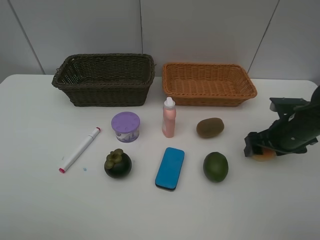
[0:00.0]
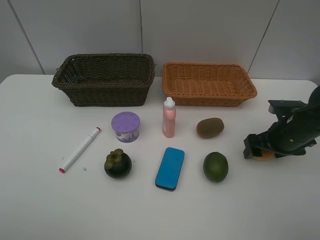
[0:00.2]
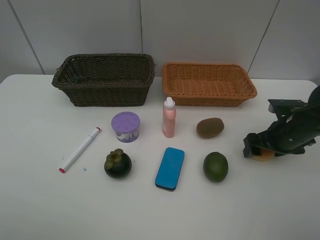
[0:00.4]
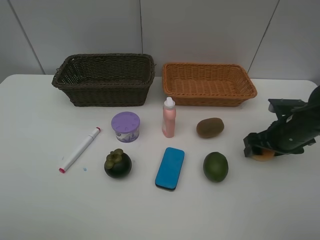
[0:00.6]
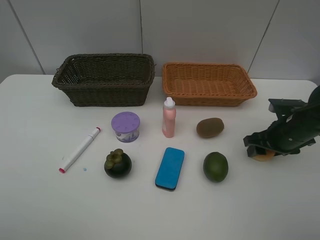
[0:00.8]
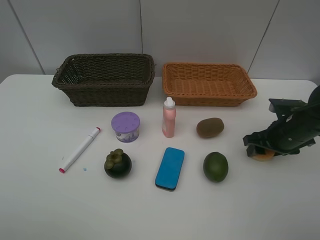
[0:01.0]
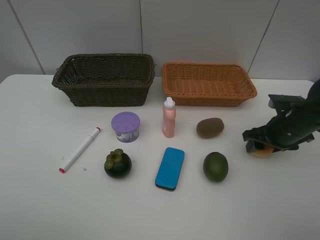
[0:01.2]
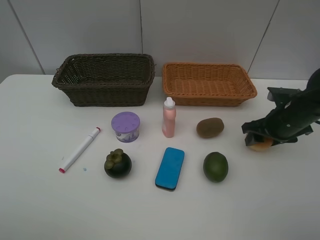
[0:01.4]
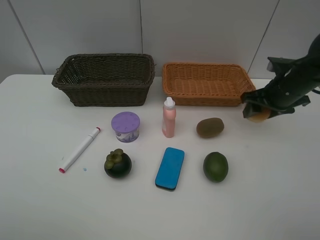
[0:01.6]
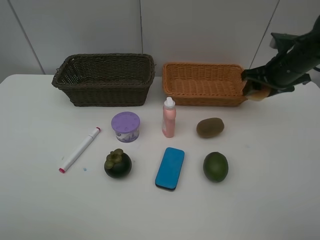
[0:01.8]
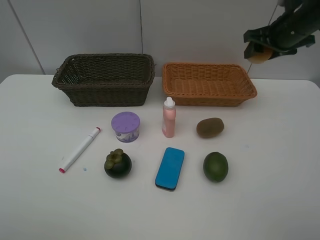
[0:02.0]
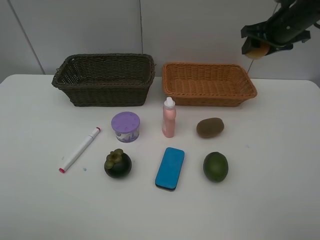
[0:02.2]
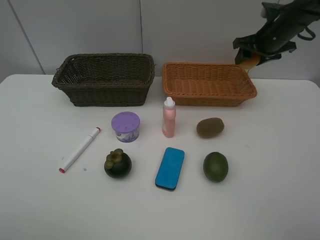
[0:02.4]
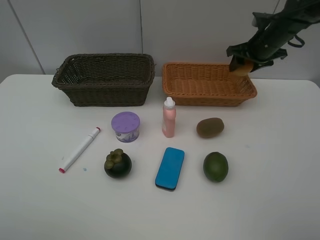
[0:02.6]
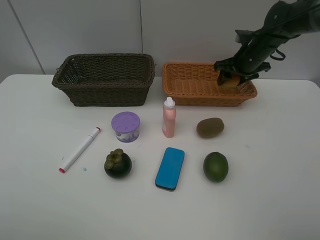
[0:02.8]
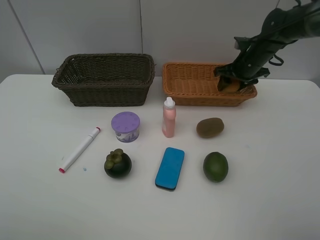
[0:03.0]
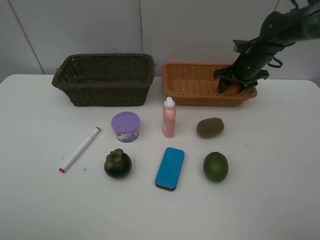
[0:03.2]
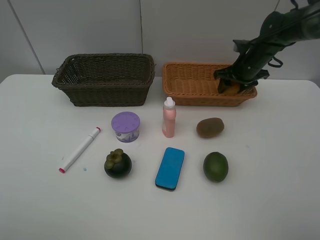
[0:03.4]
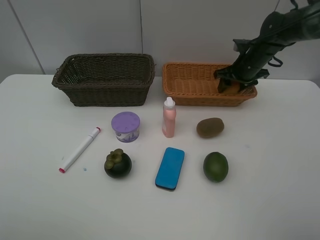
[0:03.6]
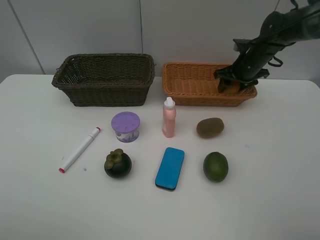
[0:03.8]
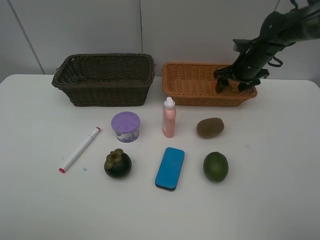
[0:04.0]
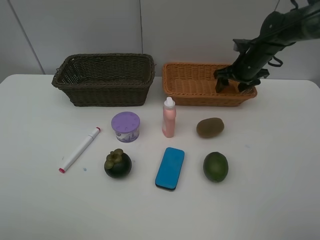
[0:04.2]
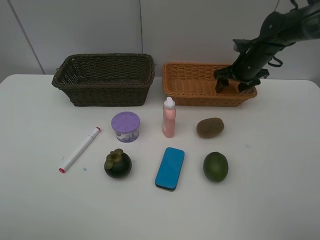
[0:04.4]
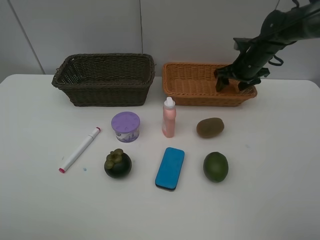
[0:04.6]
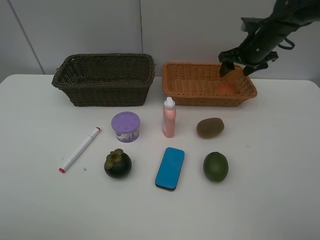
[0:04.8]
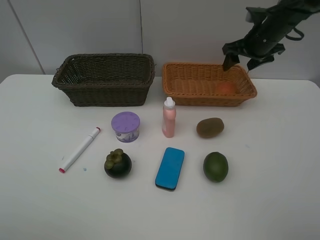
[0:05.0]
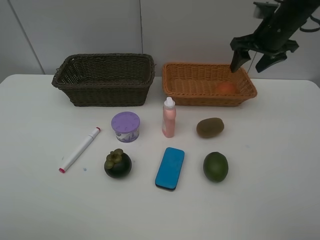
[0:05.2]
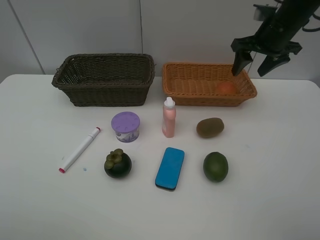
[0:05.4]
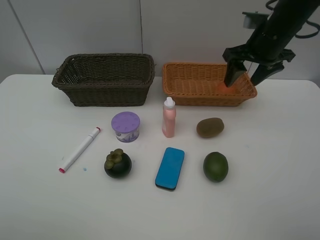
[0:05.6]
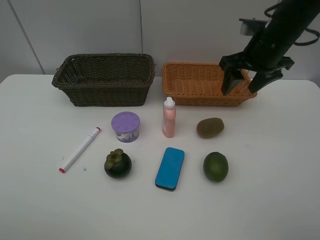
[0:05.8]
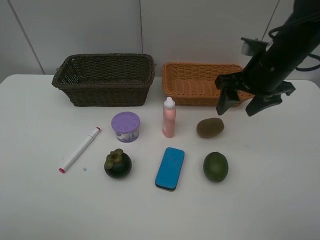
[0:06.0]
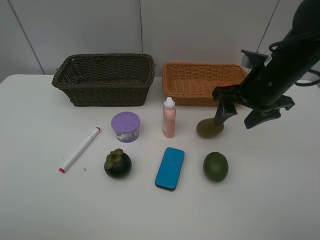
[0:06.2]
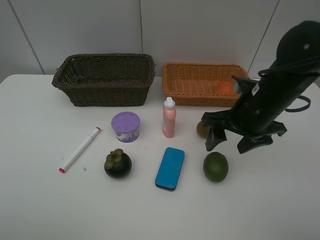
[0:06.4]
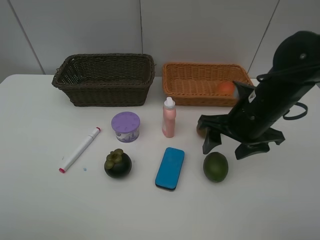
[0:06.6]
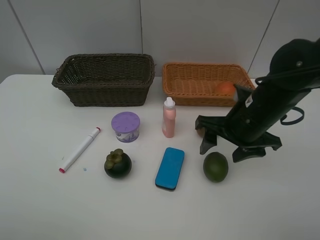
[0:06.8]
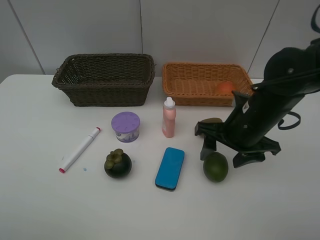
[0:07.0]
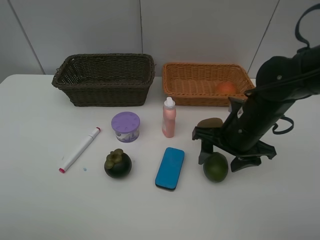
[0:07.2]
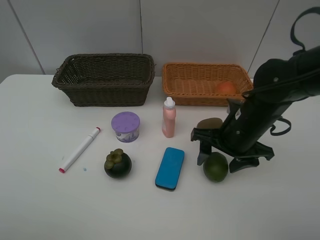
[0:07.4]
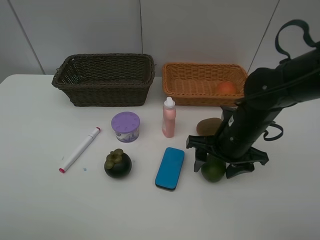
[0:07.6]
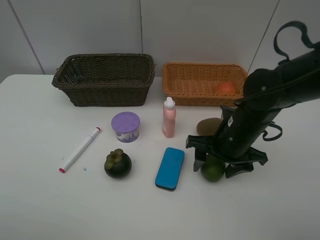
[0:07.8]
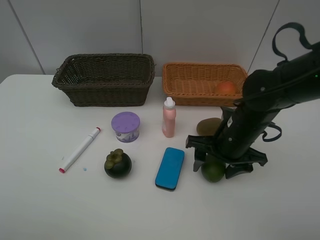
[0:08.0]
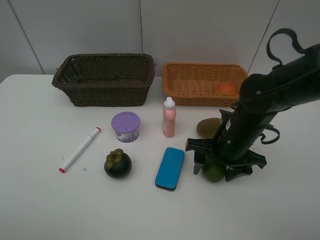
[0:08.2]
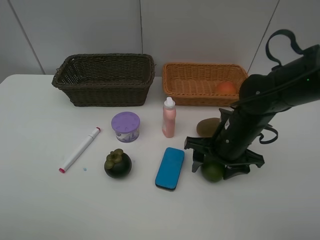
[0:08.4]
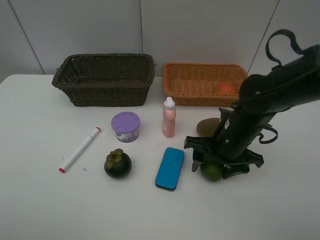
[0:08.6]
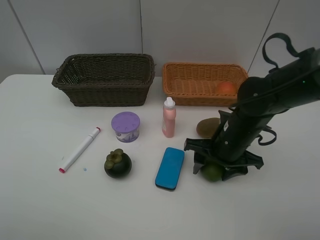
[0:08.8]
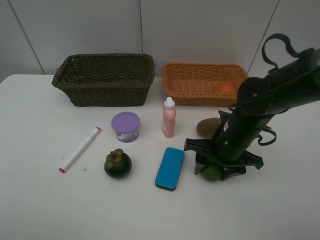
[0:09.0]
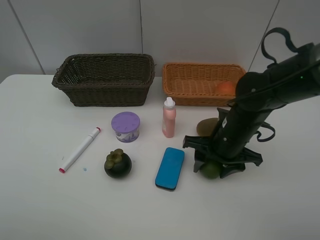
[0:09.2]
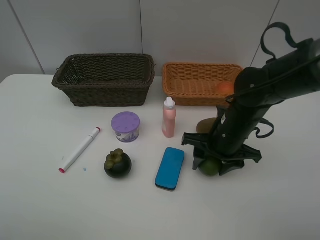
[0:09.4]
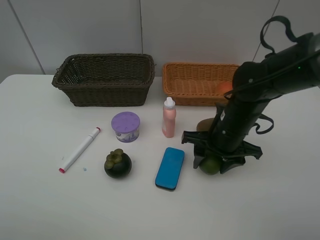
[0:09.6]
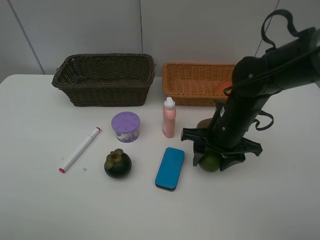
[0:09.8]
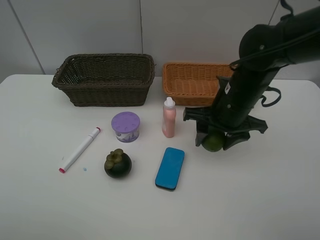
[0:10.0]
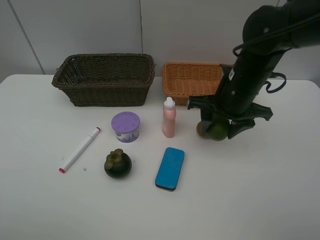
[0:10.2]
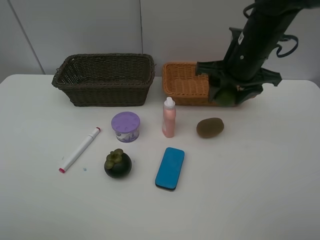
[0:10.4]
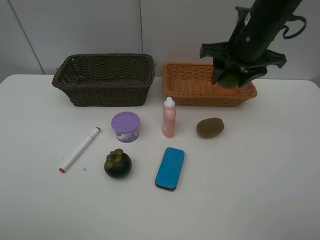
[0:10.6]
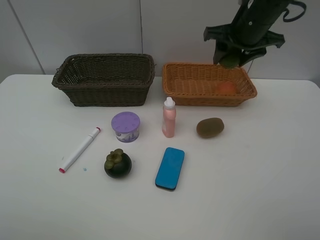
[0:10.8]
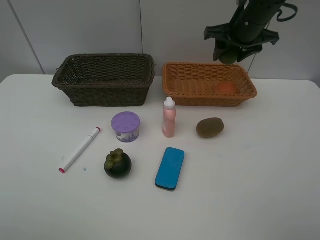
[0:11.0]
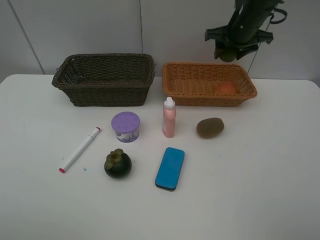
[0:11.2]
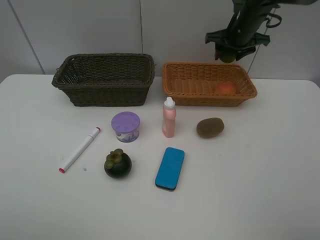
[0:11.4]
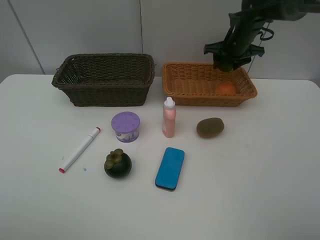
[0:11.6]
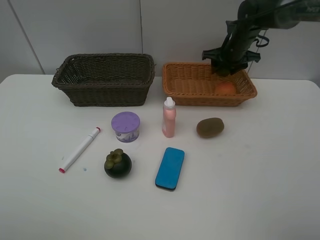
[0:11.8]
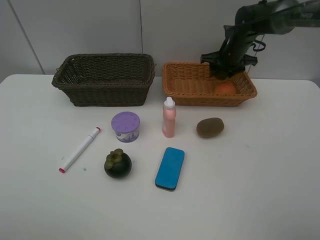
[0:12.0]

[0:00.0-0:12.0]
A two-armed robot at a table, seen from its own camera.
Task of the whole recording: Place multiple objects separately in different baskets.
Step, 0:01.6 to 0:04.8: Place the egg yolk pastry in the light basket with right gripper.
Step, 0:05.0 to 0:09.8: Pick up the lime with right gripper.
0:00.0 to 0:01.6: The right gripper goes some 10 cm forward and upward, and closes its fingers.
0:01.6 to 0:03.0: The right gripper heads forward, covering approximately 10 cm.
0:03.0 to 0:04.4: Neither gripper changes place.
0:04.4 to 0:06.0: The right gripper shifts roughly 20 cm backward and upward.
0:06.0 to 0:07.6: The right gripper shifts approximately 10 cm downward and backward.
0:07.6 to 0:09.0: The grippers move only a little.
0:09.0 to 0:10.4: The right gripper travels upward and forward by approximately 15 cm.
0:10.4 to 0:12.0: The right gripper travels forward and downward by approximately 20 cm.

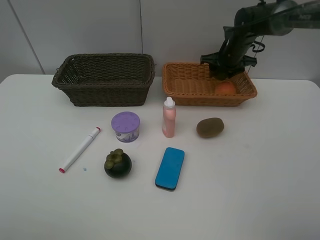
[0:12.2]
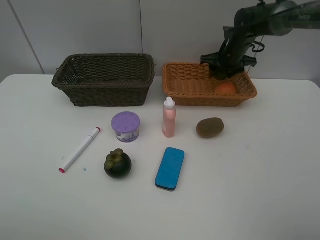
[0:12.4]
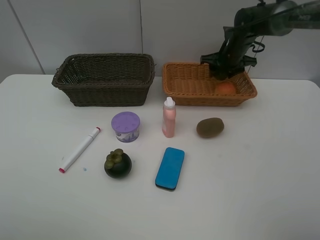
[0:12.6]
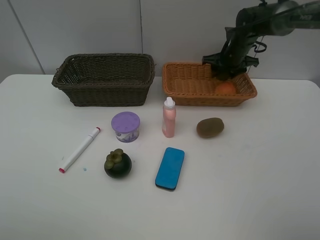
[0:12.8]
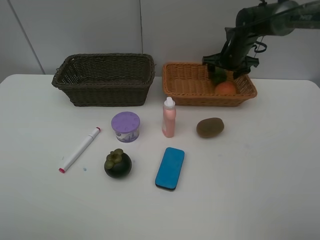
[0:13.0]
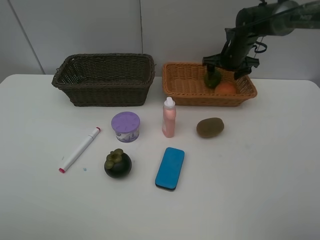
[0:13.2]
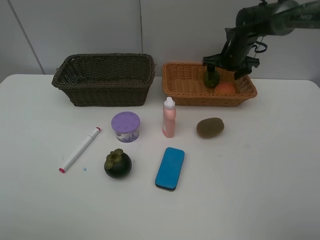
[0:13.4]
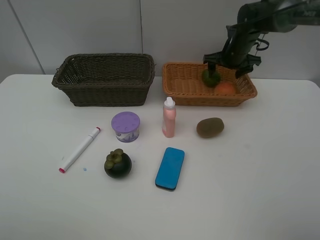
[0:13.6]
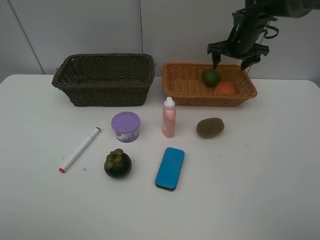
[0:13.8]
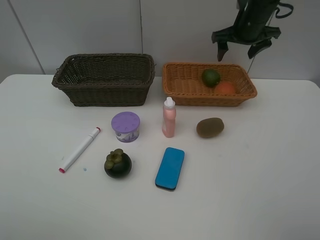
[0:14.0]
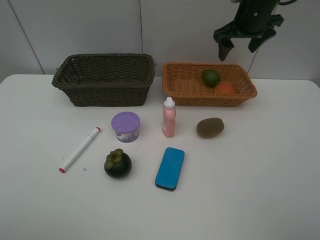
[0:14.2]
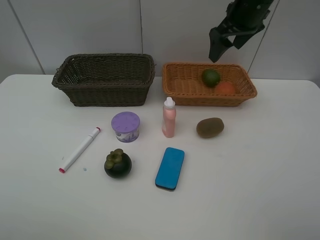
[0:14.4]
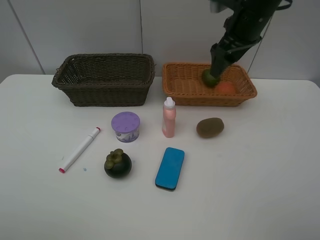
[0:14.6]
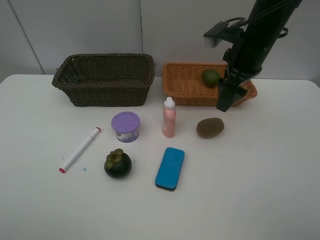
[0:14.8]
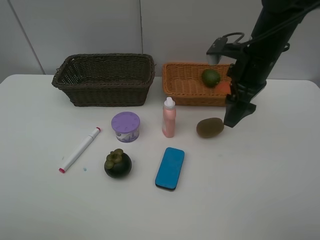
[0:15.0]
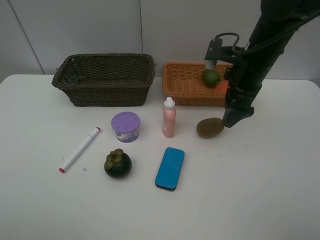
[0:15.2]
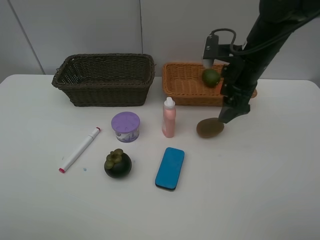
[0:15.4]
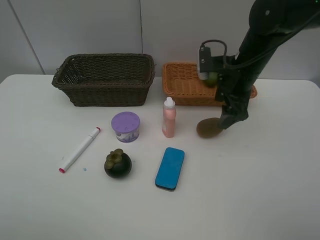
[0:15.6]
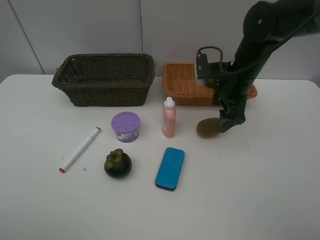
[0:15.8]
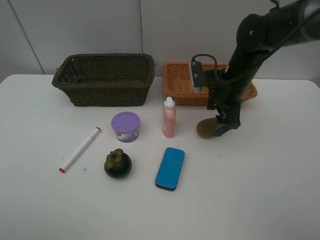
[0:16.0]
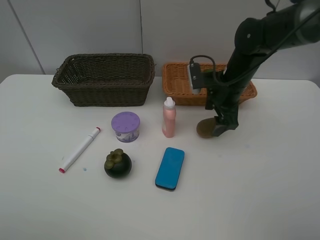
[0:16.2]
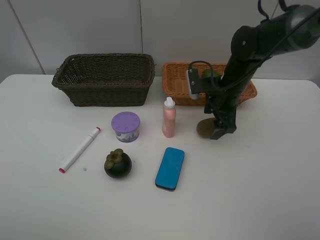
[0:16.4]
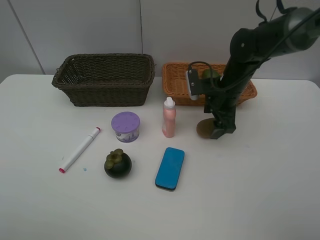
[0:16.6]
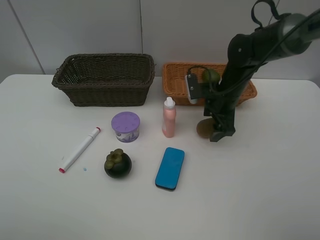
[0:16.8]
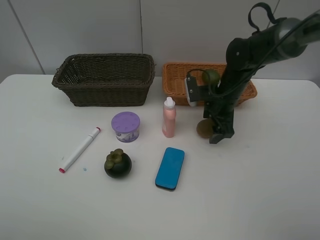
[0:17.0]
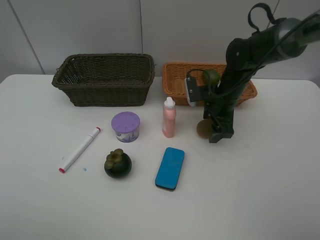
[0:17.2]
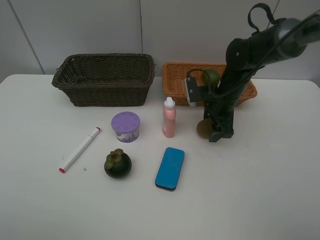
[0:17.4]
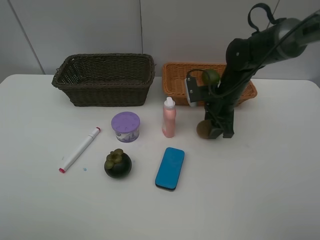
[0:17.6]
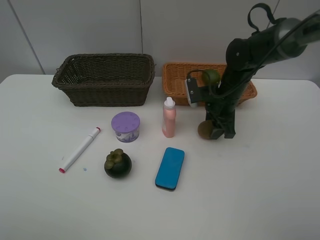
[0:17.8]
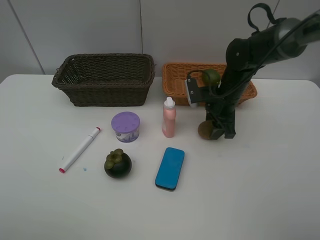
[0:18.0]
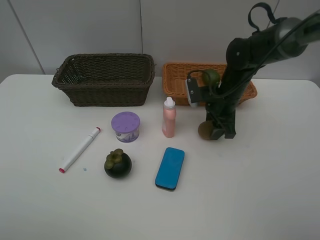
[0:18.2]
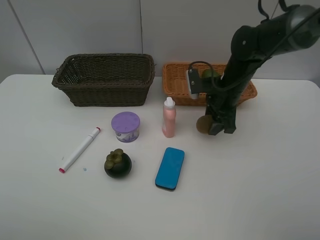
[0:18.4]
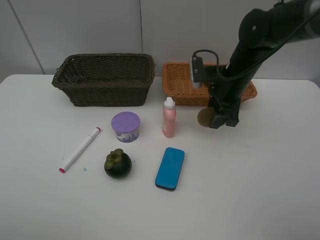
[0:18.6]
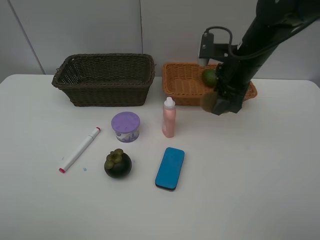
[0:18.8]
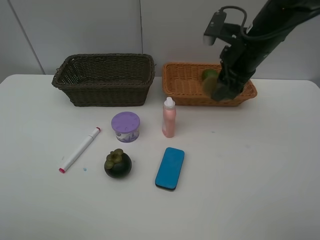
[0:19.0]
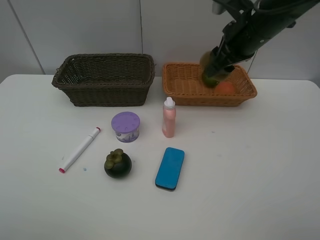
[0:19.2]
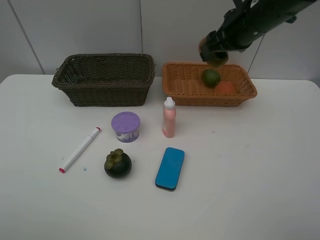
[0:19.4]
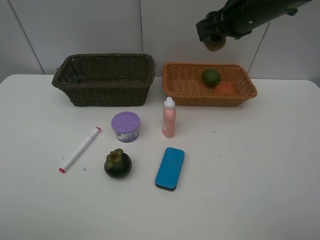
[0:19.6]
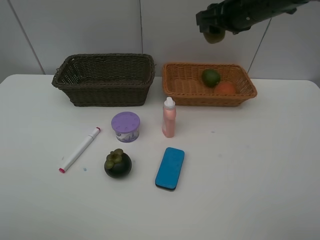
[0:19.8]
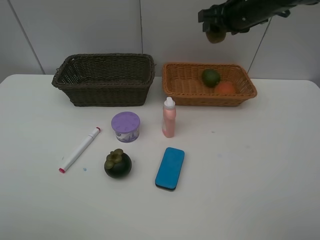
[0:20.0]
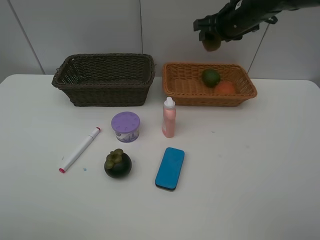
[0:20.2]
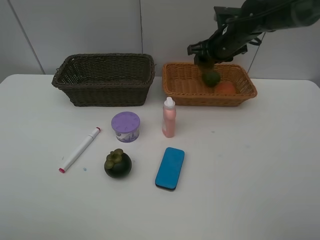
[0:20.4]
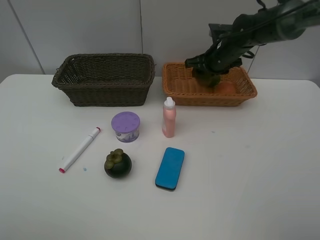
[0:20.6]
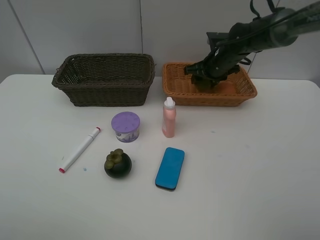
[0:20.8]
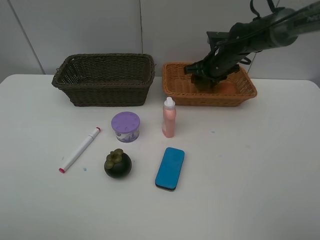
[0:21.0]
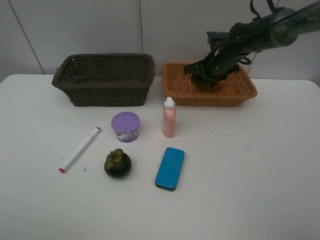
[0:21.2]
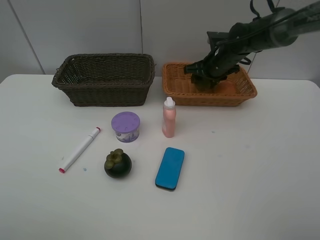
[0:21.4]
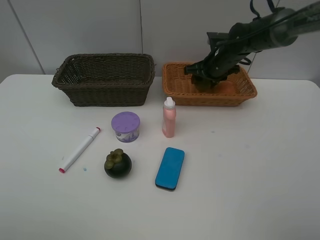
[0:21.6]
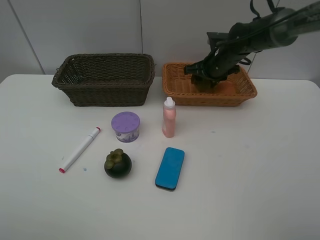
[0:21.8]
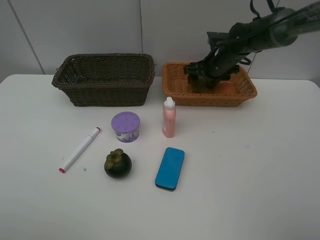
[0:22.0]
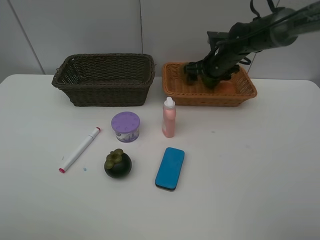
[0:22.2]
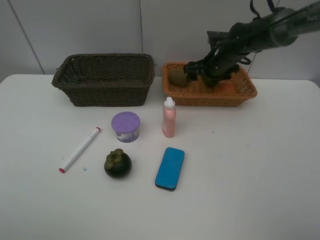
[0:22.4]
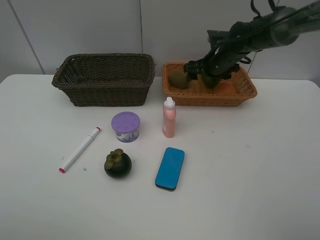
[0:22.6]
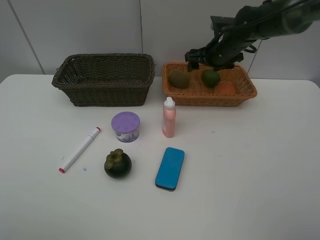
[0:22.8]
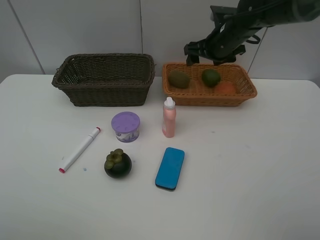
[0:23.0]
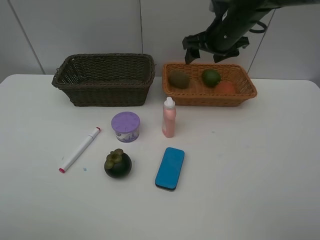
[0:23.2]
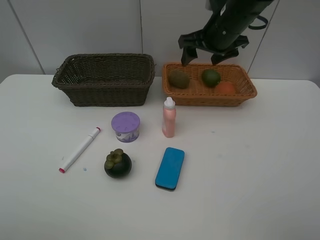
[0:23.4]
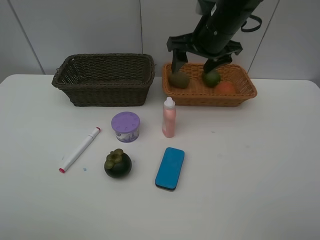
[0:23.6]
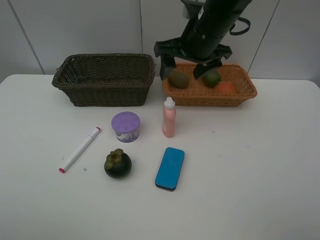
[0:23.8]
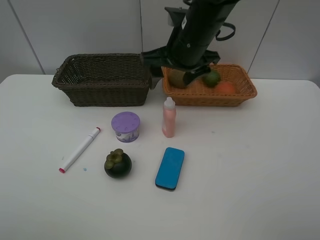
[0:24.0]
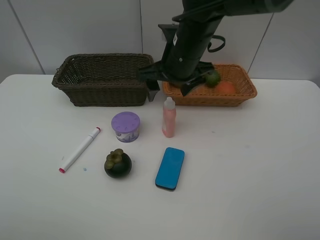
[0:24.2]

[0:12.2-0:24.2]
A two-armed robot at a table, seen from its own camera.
Task of the whole recording: Place multiple objects separately in different baskets.
Step, 0:14.0 to 0:18.4: Pick up kiwi with right gripper.
Step, 0:18.6 to 0:22.8: Place the kiwi in the light basket with right gripper.
0:12.2 to 0:13.8: The right gripper heads upward, covering roughly 5 cm, and opens.
0:13.8 to 0:15.2: The right gripper is displaced backward by approximately 15 cm.
0:15.2 to 0:16.6: The right gripper goes some 10 cm downward.
0:16.6 to 0:18.2: The right gripper closes up.
0:18.2 to 0:19.8: The right gripper goes roughly 15 cm upward.
0:19.8 to 0:21.2: The right gripper goes roughly 15 cm downward and forward.
0:21.2 to 0:22.6: The right gripper opens up.
0:22.6 to 0:24.2: The right gripper goes about 20 cm backward, to the left and upward.
